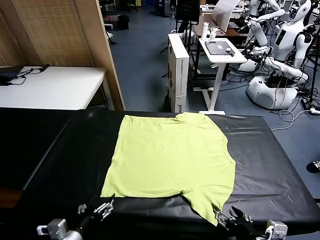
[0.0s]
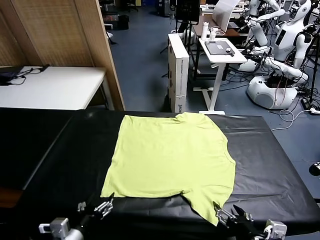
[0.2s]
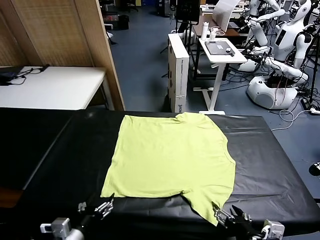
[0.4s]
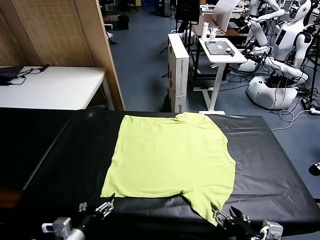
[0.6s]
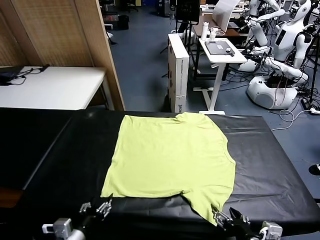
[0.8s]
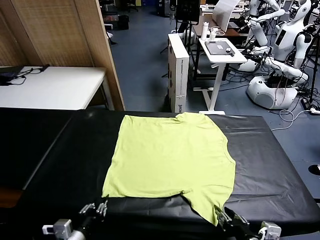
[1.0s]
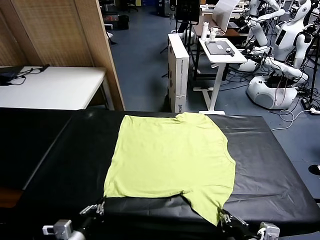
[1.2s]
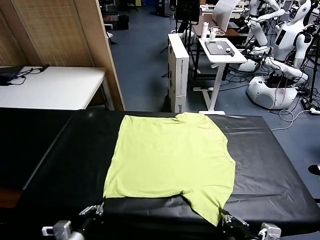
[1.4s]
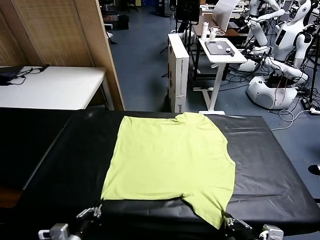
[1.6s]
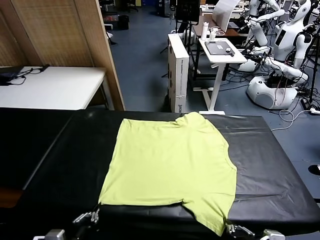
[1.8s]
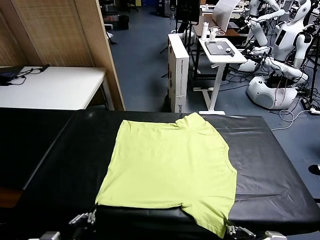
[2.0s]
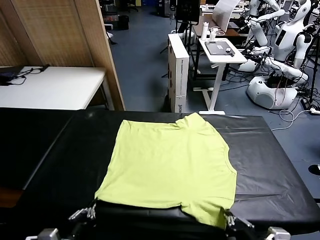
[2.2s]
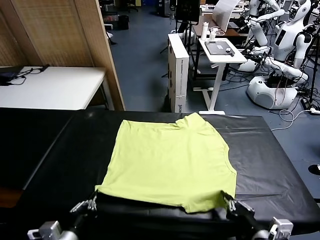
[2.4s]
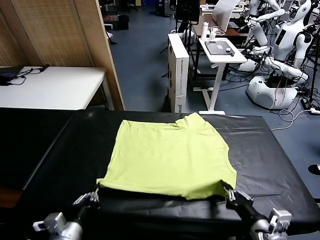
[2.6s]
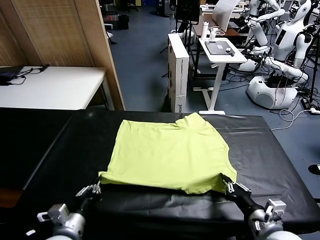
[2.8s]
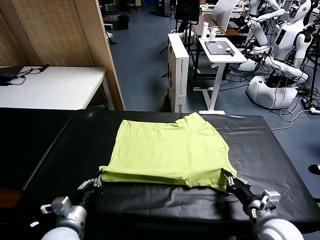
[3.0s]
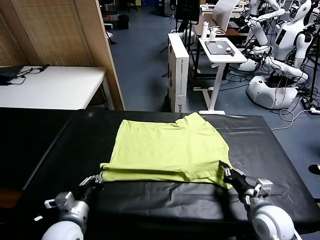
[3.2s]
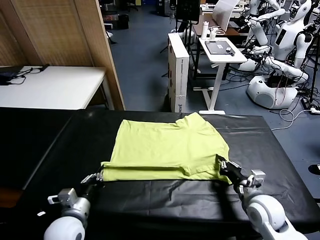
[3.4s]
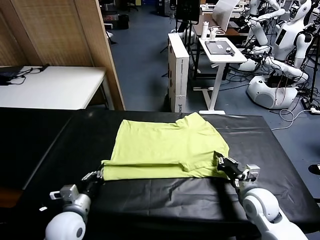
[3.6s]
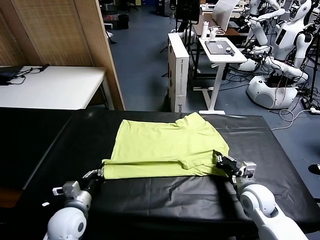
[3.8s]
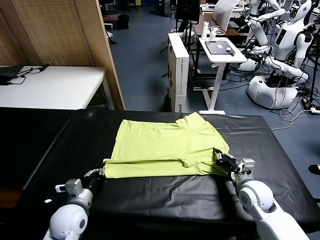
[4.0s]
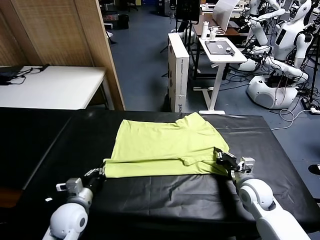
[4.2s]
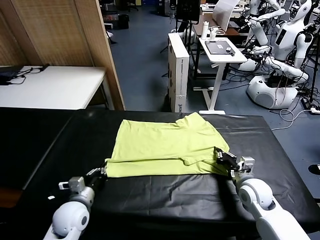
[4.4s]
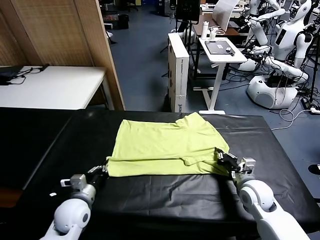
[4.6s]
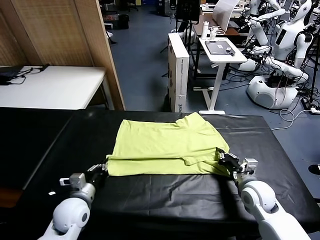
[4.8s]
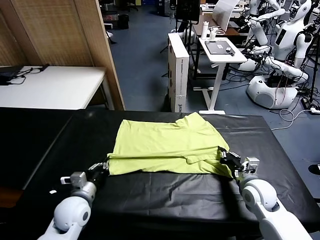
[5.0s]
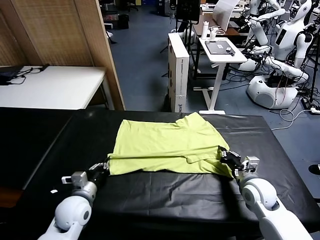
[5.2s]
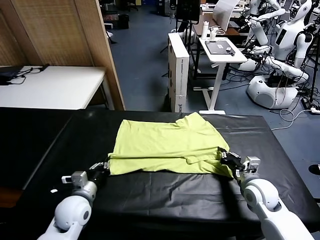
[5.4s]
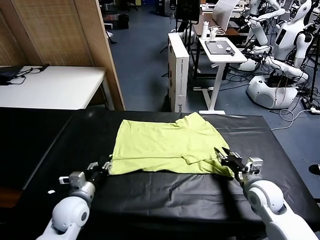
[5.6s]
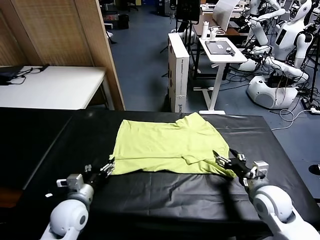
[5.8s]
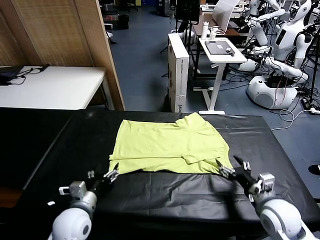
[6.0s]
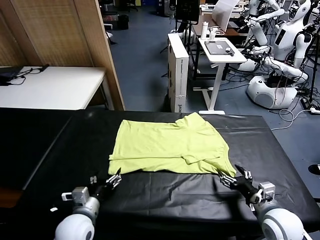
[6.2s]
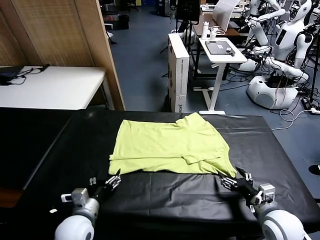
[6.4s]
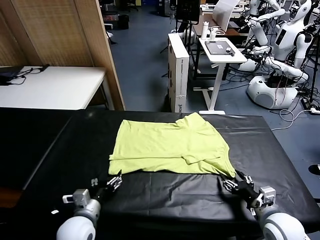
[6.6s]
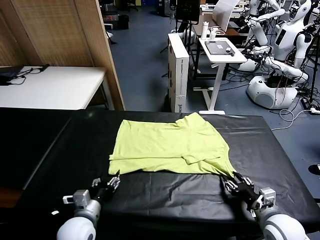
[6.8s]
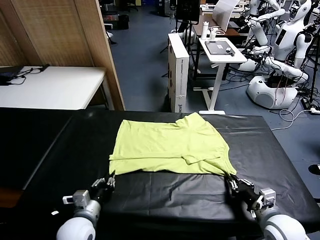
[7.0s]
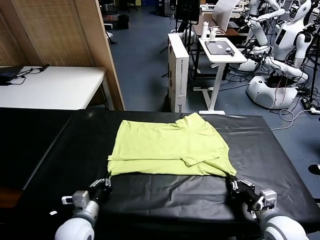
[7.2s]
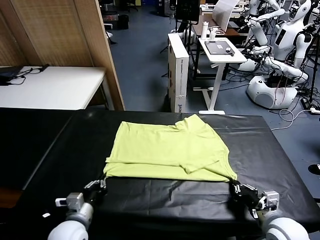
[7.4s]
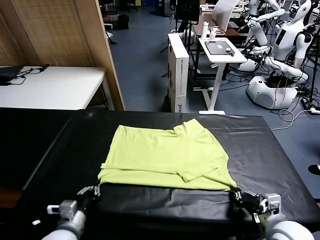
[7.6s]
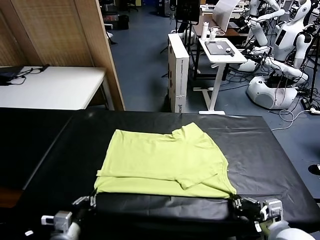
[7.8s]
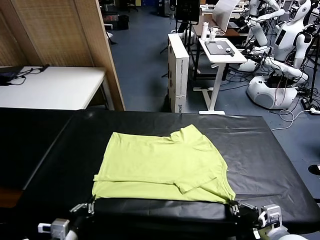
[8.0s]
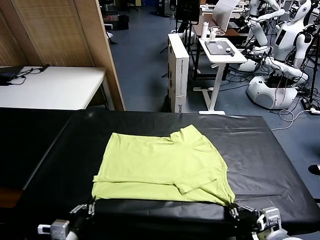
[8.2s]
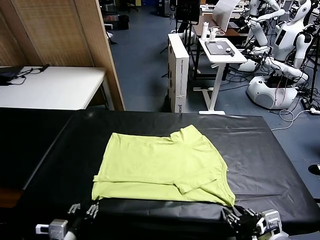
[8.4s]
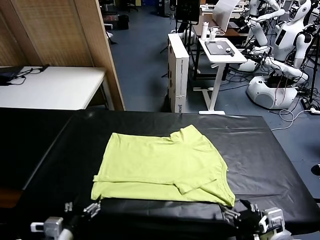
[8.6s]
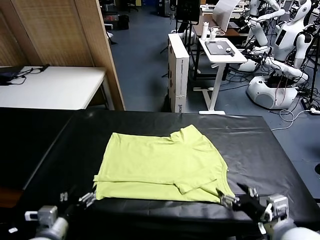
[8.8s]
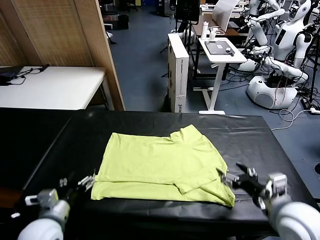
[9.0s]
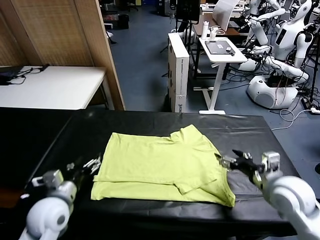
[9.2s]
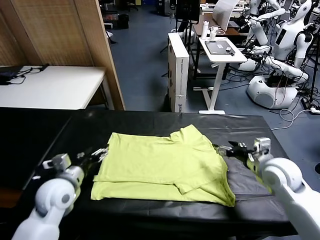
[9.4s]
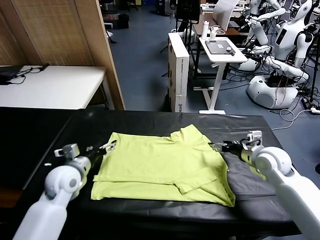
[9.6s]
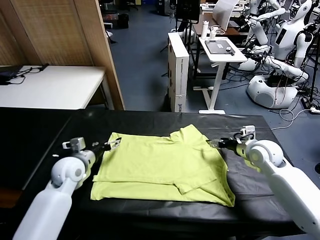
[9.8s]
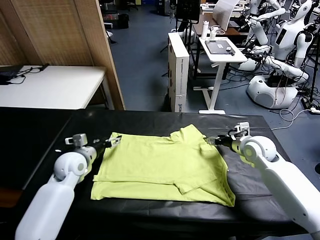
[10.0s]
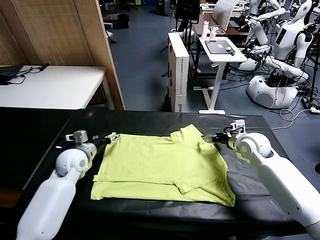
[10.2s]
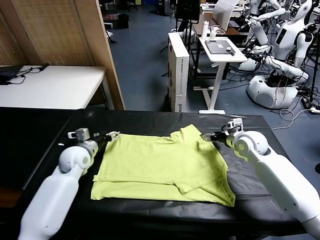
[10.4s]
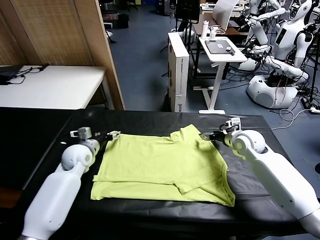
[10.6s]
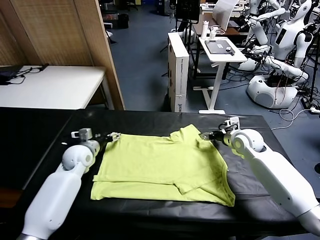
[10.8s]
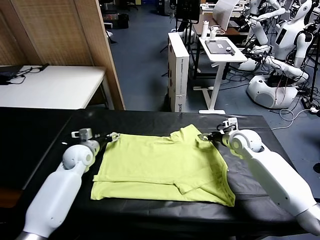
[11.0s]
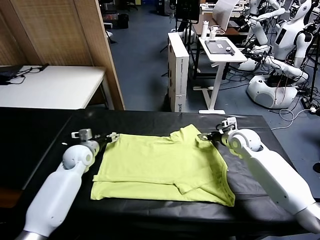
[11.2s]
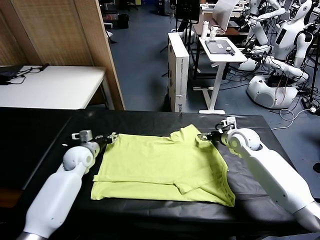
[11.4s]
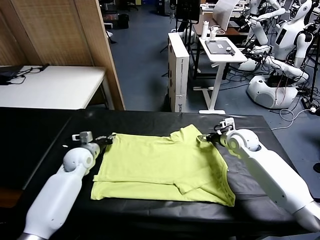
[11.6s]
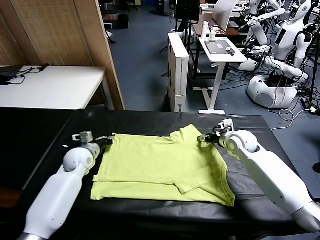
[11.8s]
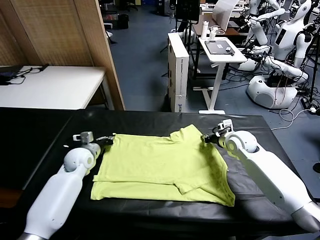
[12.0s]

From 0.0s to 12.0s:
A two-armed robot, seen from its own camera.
Task of the whole recording: fold and organize the clothes.
Step, from 0.0s to 1.4s: use both grippers simultaneously to clamp the lower edge of the clothing fabric.
Step, from 1.6s to 5.6s: use both grippers to drag the lower edge of the fabric forward and fold it over the upper edge.
Step, from 5.8s to 8.6s: Drag the clothes downward with both gripper.
From 1.6s to 3.0s: The left gripper shifts about 10 cm forward. Meanwhile the right gripper moves forward and downward, approximately 20 cm.
From 3.0s to 4.4s: The left gripper shifts roughly 5 cm forward, and opens.
From 4.4s to 6.0s: The right gripper goes about 10 cm backward, and opens; the left gripper shifts by about 5 cm, and closes its fingers.
From 6.0s to 7.6s: The left gripper is displaced backward by approximately 5 cm, and opens up. Meanwhile the right gripper is displaced backward and upward by approximately 10 cm, and closes, then opens again.
From 7.6s to 9.0s: The right gripper goes about 25 cm forward, and opens; the left gripper shifts approximately 10 cm forward and upward.
From 9.0s to 10.4s: The right gripper travels forward by some 10 cm; the left gripper shifts roughly 20 cm forward, and closes its fingers.
From 10.4s to 12.0s: The right gripper closes.

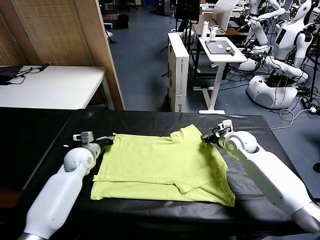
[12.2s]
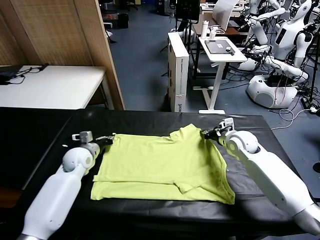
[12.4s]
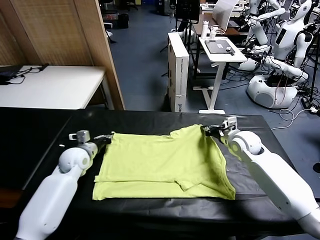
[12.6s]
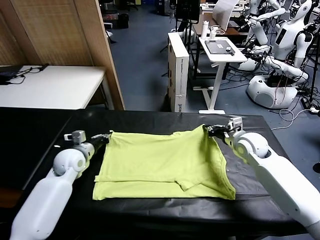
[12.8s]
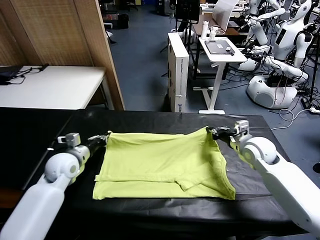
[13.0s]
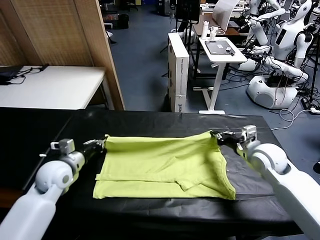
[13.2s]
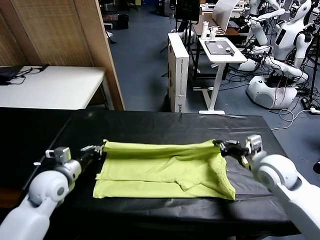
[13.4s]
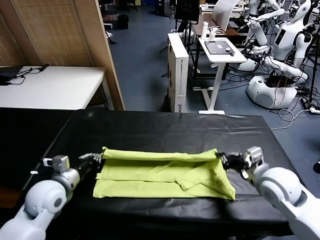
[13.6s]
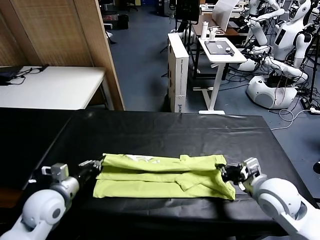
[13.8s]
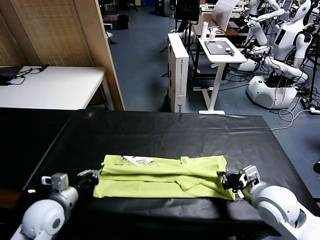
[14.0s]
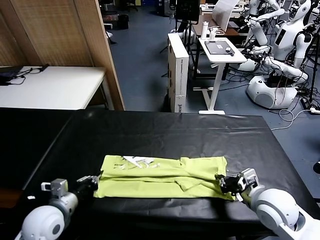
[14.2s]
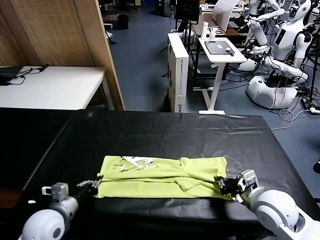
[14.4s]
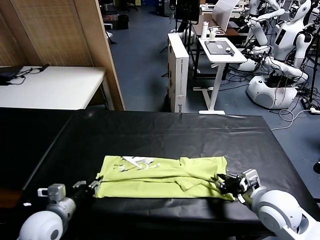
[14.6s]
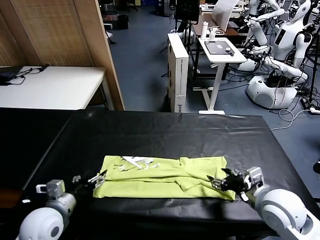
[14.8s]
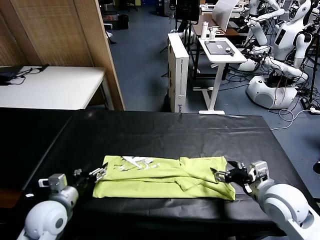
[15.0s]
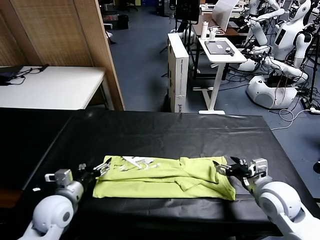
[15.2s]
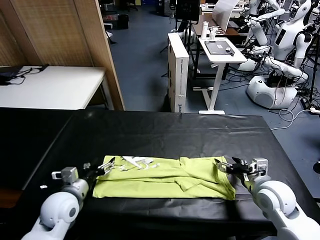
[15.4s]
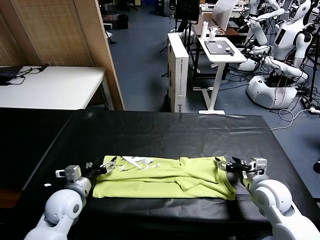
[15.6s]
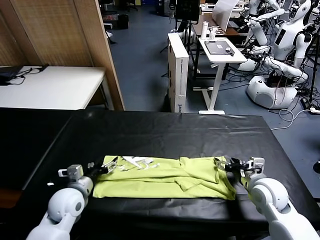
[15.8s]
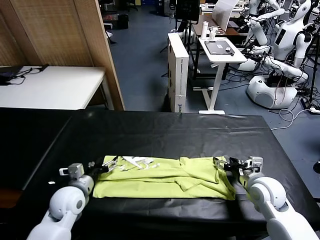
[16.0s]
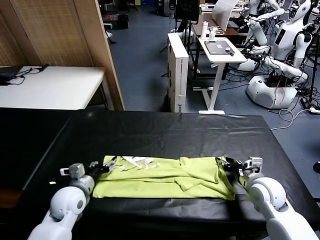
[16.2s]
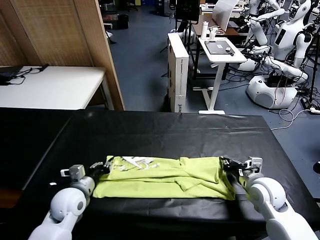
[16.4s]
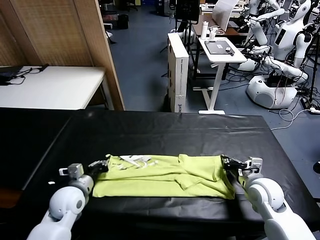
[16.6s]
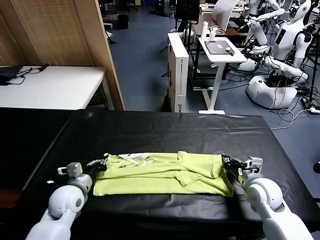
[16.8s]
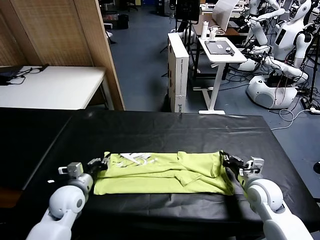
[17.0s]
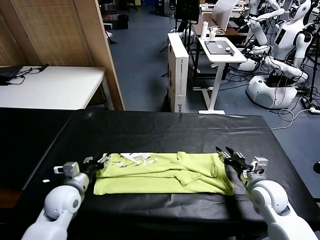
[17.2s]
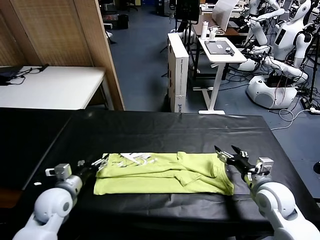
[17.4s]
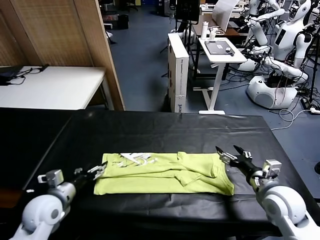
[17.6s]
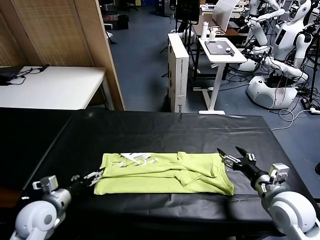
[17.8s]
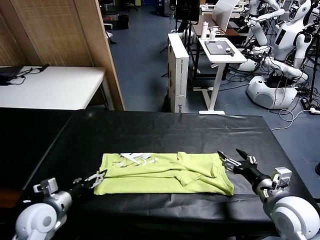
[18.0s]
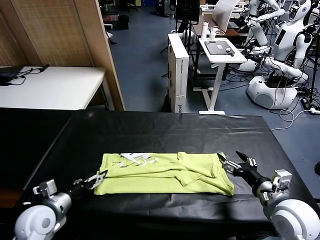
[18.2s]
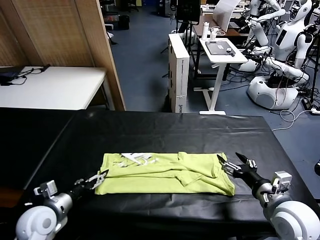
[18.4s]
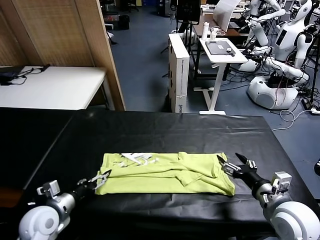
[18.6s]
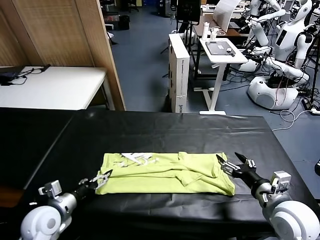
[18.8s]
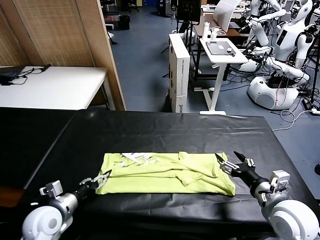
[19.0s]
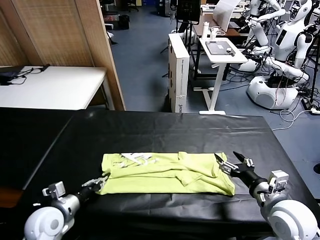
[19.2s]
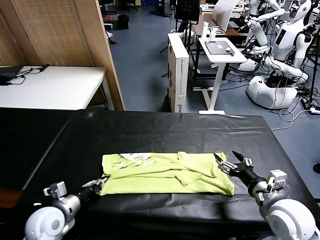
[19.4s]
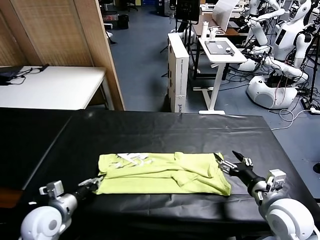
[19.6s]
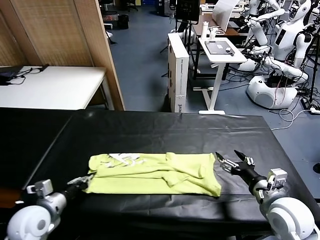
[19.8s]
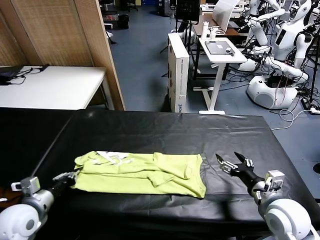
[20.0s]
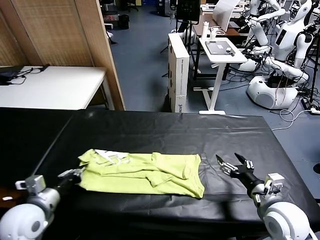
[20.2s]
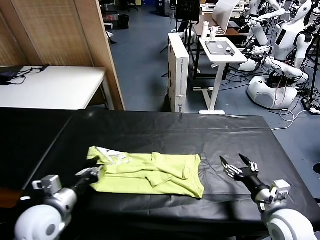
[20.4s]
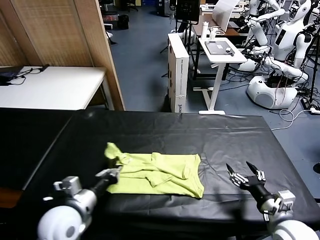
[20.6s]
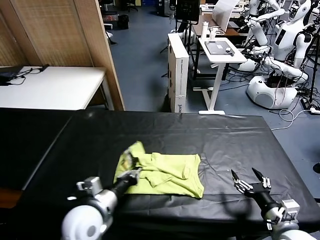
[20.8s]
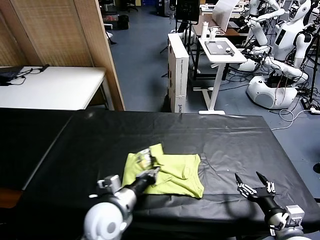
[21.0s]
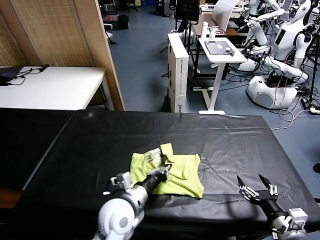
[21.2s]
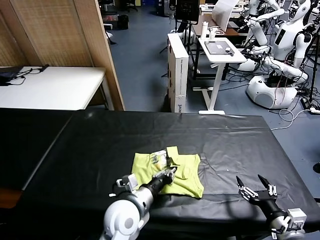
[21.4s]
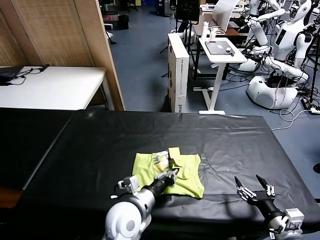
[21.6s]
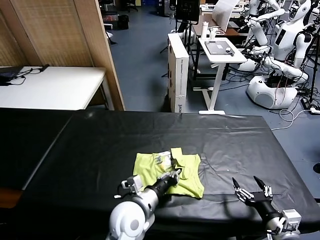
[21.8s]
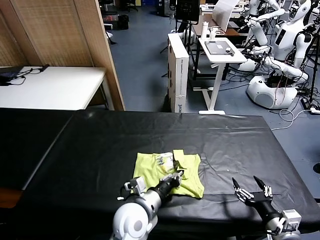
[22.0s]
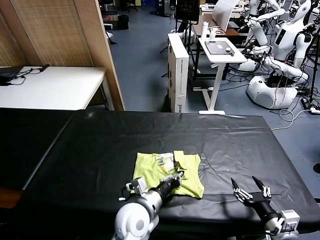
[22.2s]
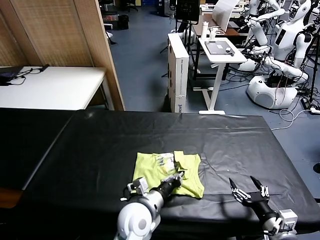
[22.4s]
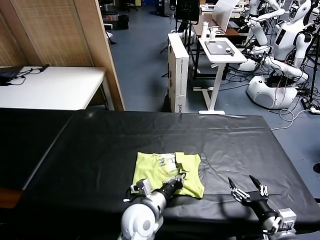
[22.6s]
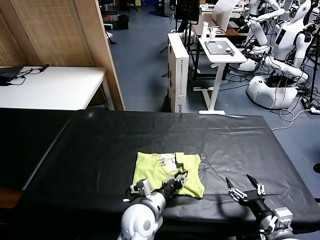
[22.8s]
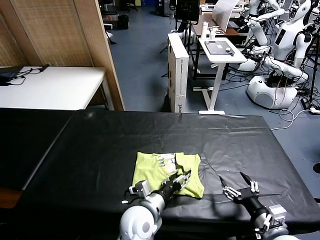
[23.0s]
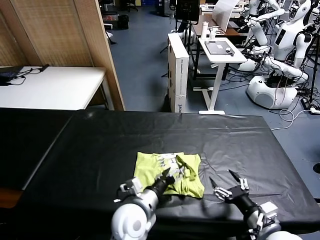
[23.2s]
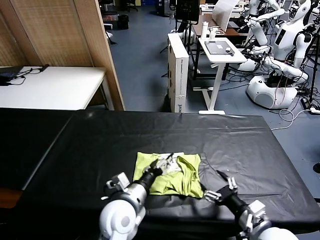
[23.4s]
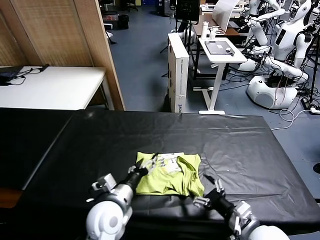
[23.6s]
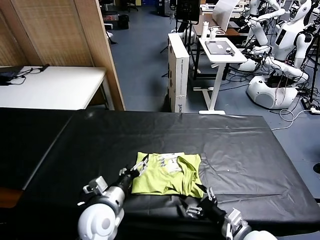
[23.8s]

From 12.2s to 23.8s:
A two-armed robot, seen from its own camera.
Task of the whole recording: fold and organize the clothes.
Step, from 12.2s to 14.8s: use both grippers to drag the upper edge of the fabric backward and fold it over the lower edge.
Step, from 15.0s to 19.2s: use the left gripper to clamp the left edge of the fabric.
Step, from 19.6s to 23.2s: use the left gripper to drag the left edge of the fabric to the left and folds it over the right edge.
From 12.2s to 13.6s: The grippers both shift backward by some 20 cm. The left gripper opens.
From 13.6s to 15.0s: The right gripper opens its fingers.
From 15.0s to 16.6s: The left gripper changes place by approximately 5 cm, and closes and opens again. The right gripper closes, then opens again.
From 16.6s to 18.0s: The right gripper shifts some 10 cm backward and upward; the left gripper moves backward and to the left, about 10 cm, and closes its fingers.
From 18.0s to 19.4s: There are only small adjustments of the grippers.
From 19.4s to 21.0s: The right gripper travels backward by some 10 cm. The left gripper is displaced to the right by some 20 cm.
From 21.0s to 22.4s: The left gripper heads to the right, covering roughly 5 cm, and opens its fingers.
From 22.4s to 23.8s: The grippers both shift to the left by approximately 10 cm. The right gripper closes its fingers.
